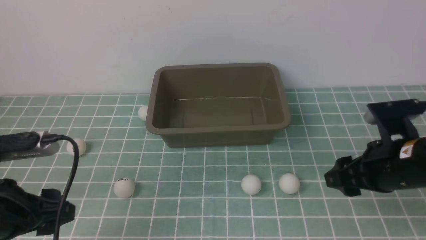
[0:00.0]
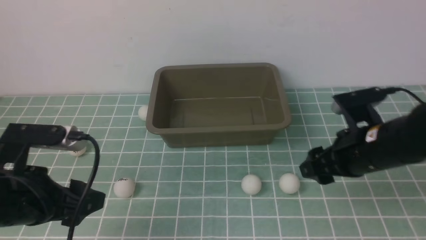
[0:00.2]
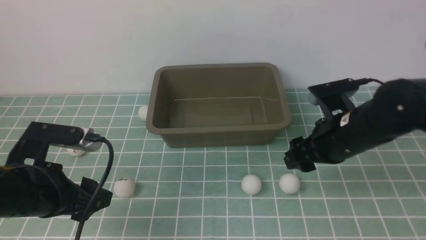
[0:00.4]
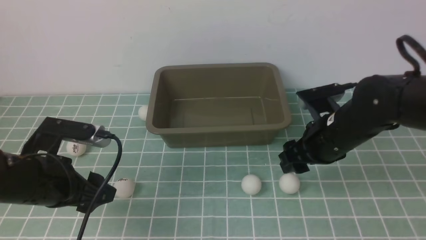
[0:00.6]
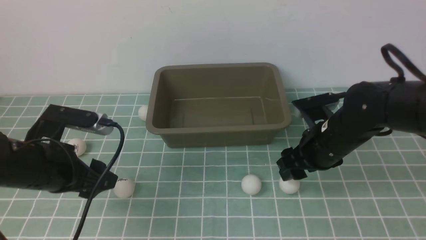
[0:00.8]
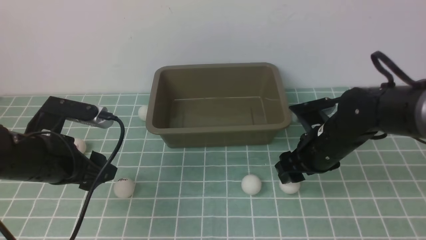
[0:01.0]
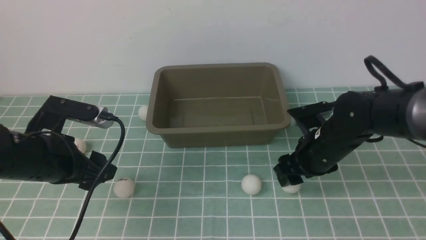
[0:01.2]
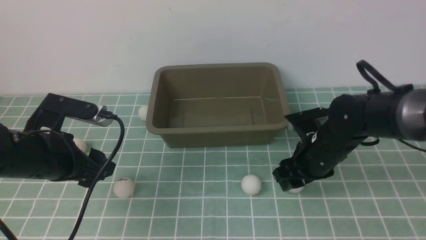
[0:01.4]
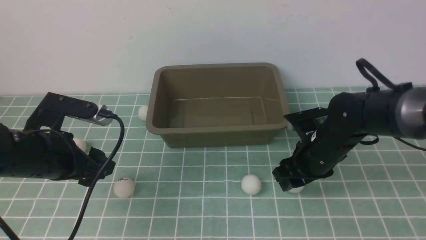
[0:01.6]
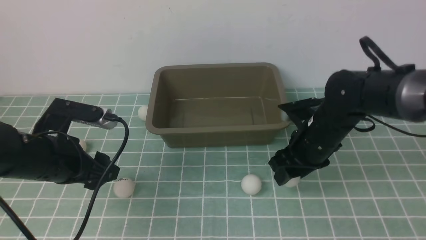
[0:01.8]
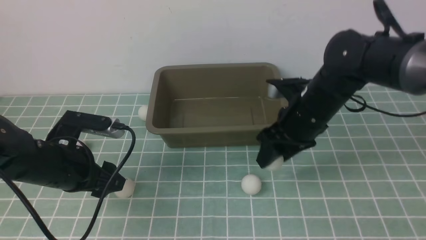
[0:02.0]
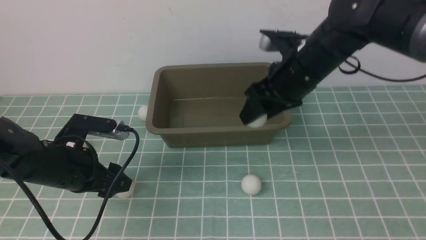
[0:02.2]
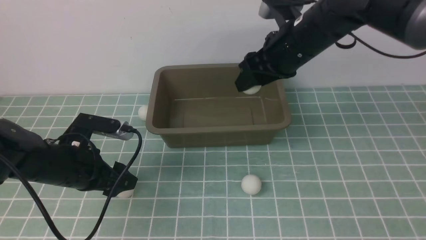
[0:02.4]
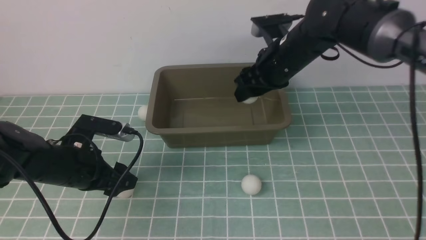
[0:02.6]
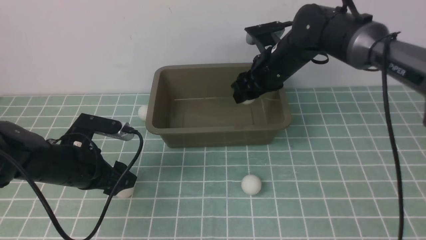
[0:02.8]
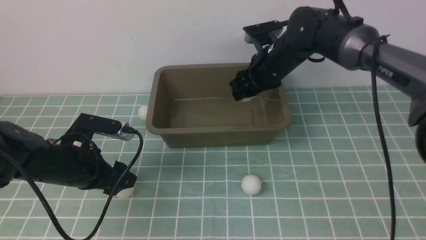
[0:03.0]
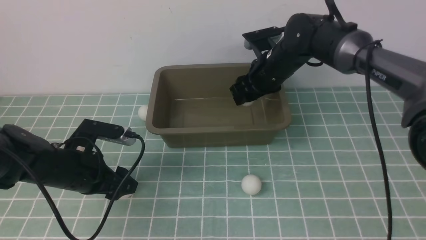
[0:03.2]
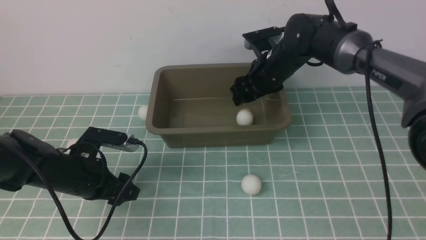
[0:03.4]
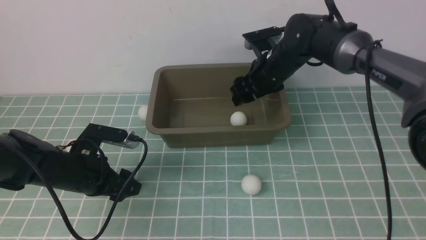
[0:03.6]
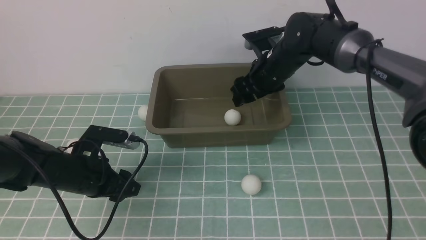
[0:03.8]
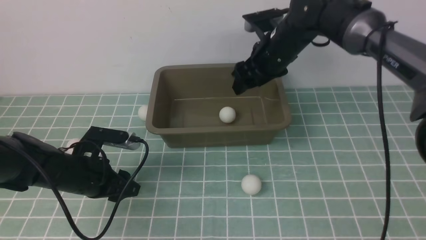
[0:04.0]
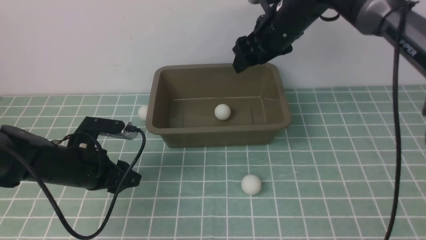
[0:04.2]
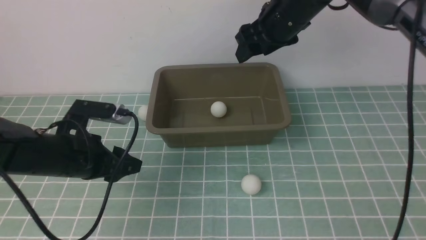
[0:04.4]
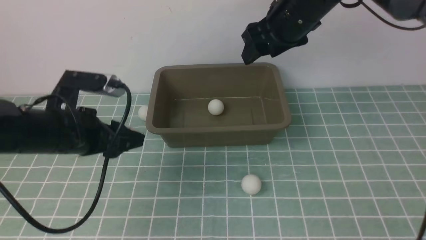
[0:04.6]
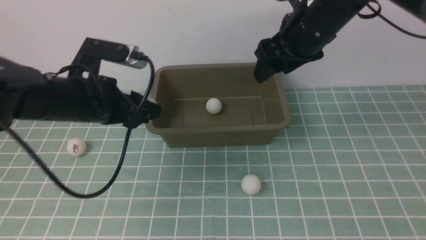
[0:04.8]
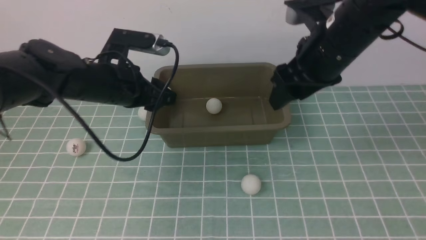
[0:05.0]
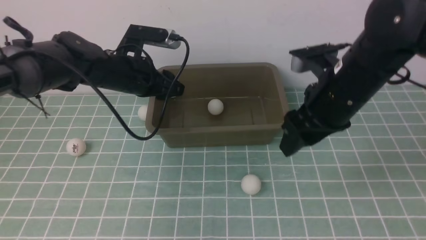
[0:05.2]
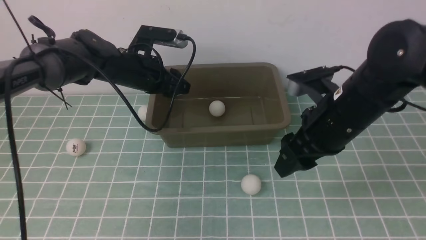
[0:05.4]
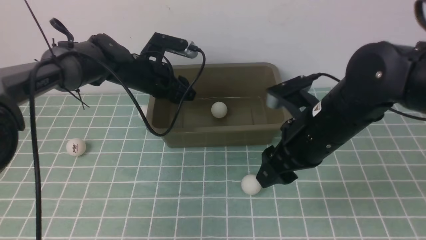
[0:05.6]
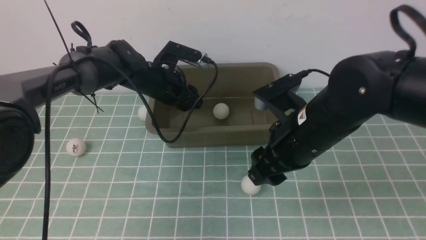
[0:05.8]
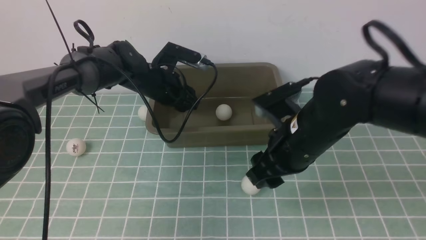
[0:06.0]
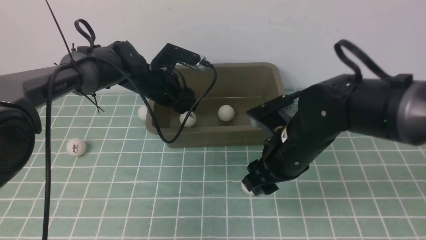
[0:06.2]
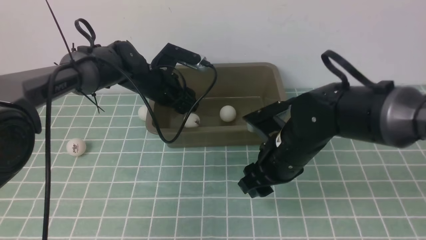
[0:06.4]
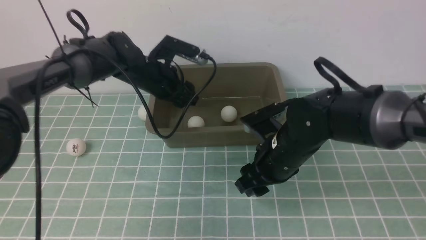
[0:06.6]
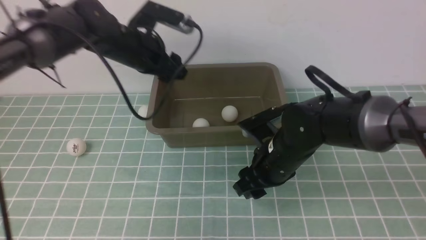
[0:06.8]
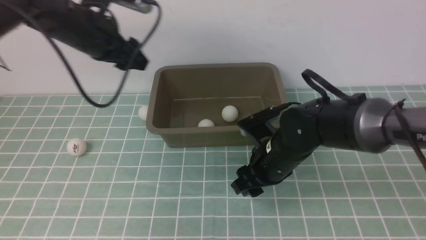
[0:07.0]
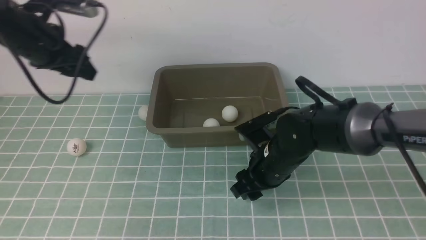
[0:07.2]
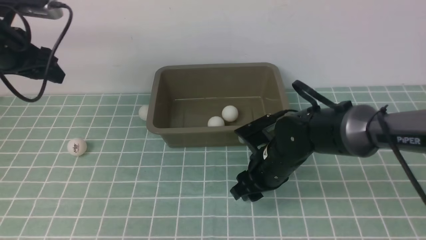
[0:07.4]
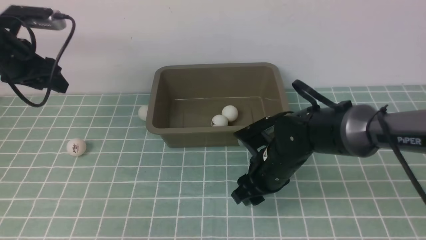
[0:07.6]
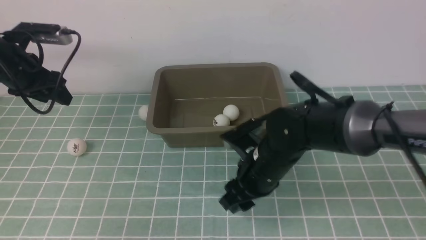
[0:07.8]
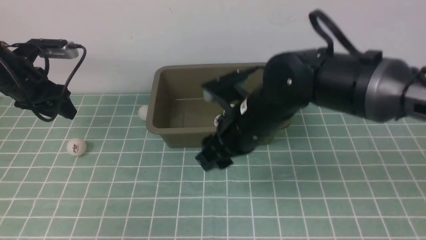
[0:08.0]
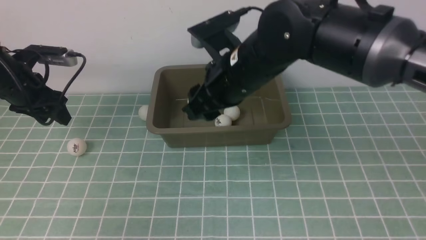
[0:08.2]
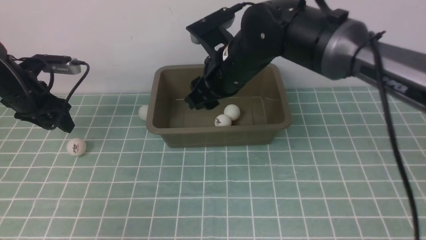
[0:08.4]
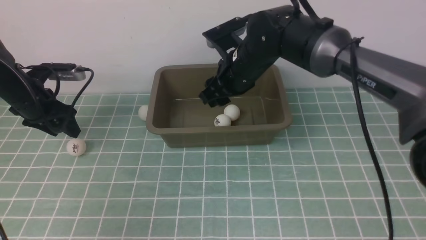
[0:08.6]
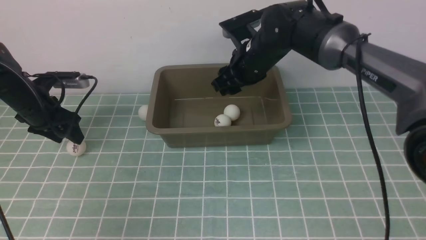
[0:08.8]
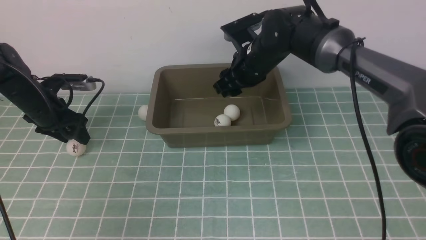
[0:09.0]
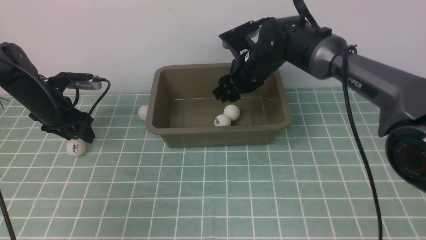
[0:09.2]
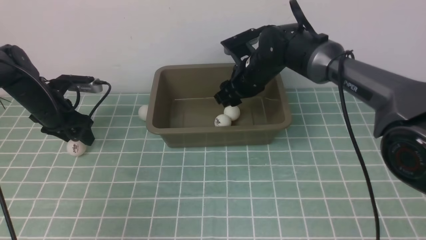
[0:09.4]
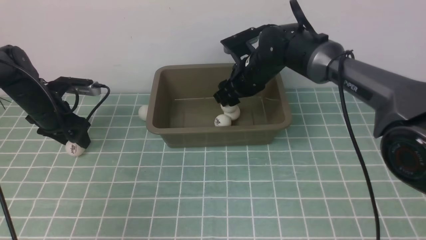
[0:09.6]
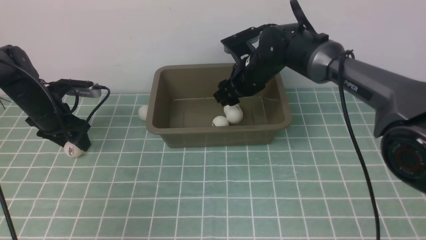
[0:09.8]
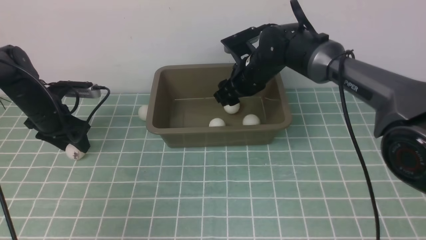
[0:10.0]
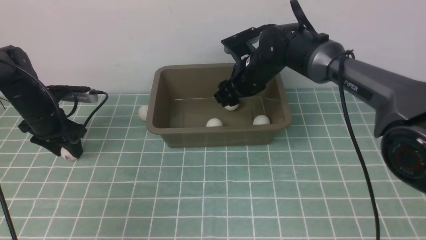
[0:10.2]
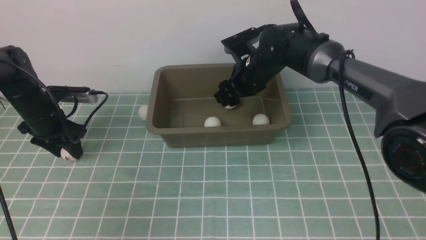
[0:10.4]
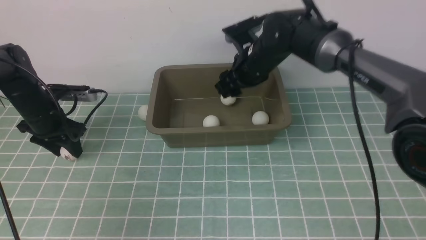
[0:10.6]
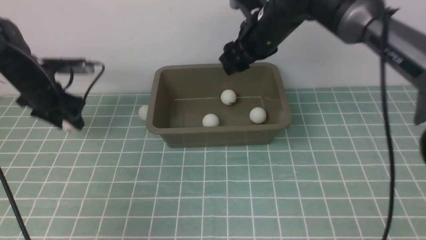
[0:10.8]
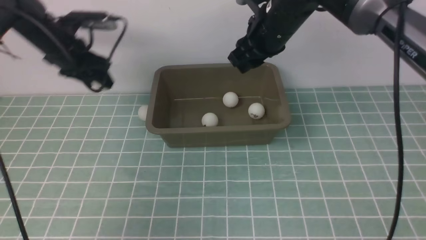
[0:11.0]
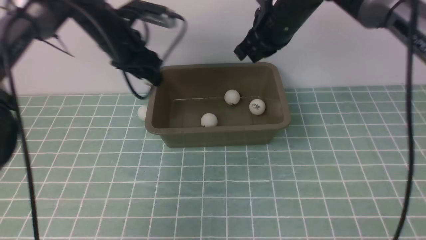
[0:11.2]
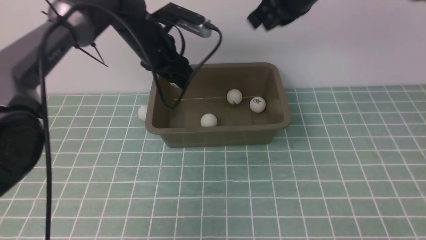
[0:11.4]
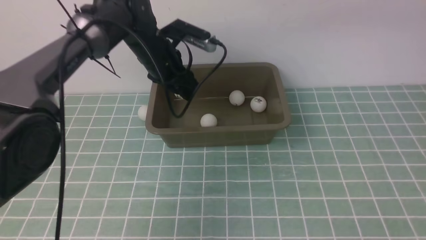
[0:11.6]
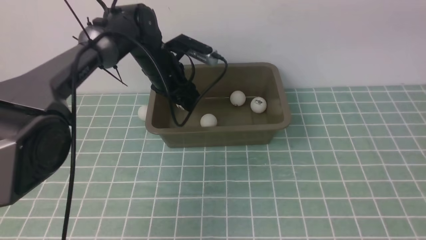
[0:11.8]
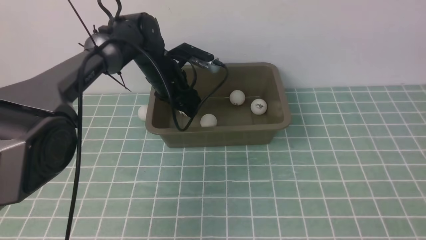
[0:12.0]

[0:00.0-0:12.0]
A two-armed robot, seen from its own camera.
Step, 0:02.2 to 0:03.6: use the right arm to put the table tennis ball into the box.
Step, 0:03.8 to 0:04.4: use the left arm to clamp the table tennis ball closest to it.
Step, 0:04.6 to 0:06.0: use the left arm to put the table tennis ball into the box.
Step, 0:06.2 to 0:07.8: use the right arm to clamp the table tennis ball closest to it.
Step, 0:08.2 to 0:09.8: use the right arm to put the table tennis ball into the box.
Step, 0:10.0 to 0:10.8: use the left arm to clamp the table tennis ball closest to it.
0:00.0 to 0:01.6: The right gripper moves forward, upward and to the left, approximately 15 cm. Meanwhile the left gripper heads forward and downward, covering approximately 10 cm.
0:01.6 to 0:03.0: The right gripper goes roughly 10 cm forward.
0:03.0 to 0:04.4: The left gripper heads forward, upward and to the right, covering some 15 cm. The right gripper moves backward and upward, roughly 15 cm.
0:04.4 to 0:06.0: The right gripper goes some 15 cm downward and to the left.
0:06.0 to 0:07.6: The right gripper travels upward and to the left by about 15 cm, while the left gripper heads to the left, covering roughly 20 cm.
0:07.6 to 0:09.0: The right gripper moves forward and downward, approximately 15 cm, while the left gripper heads downward, covering about 5 cm.
0:09.0 to 0:10.4: The grippers make only small movements.
0:10.4 to 0:12.0: The left gripper moves to the right, about 25 cm. The right gripper shifts approximately 50 cm backward, upward and to the right, and closes its fingers.

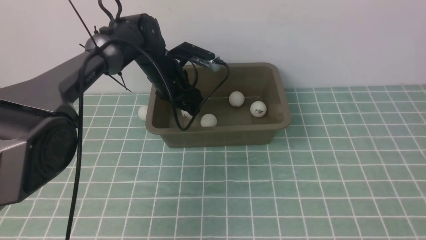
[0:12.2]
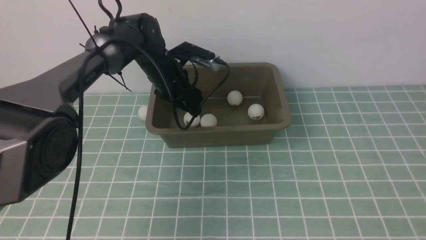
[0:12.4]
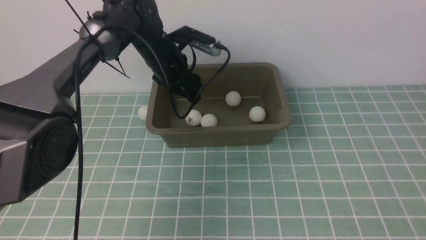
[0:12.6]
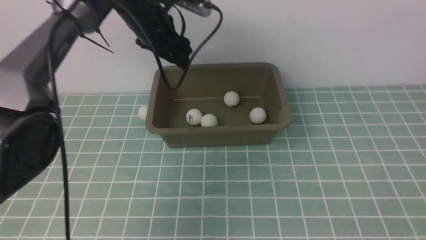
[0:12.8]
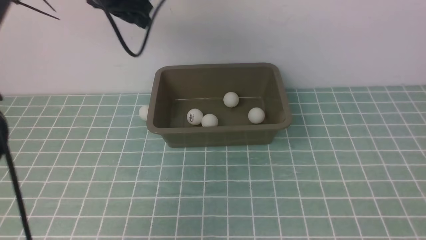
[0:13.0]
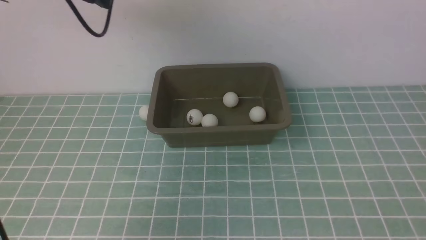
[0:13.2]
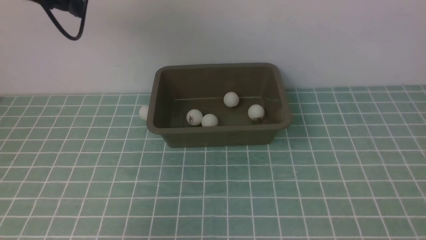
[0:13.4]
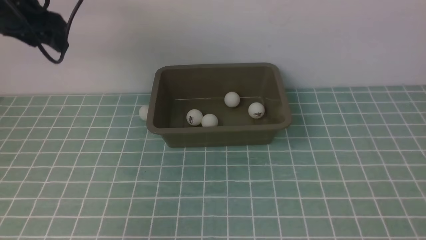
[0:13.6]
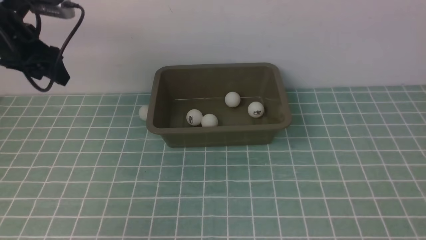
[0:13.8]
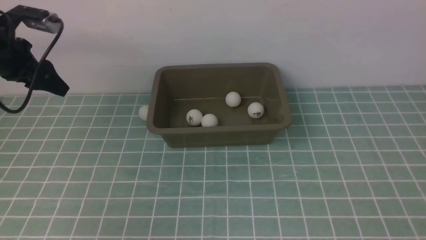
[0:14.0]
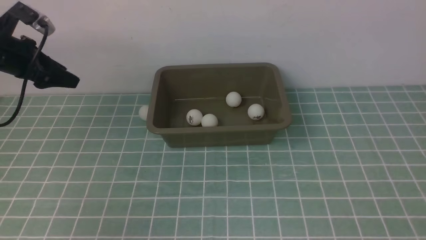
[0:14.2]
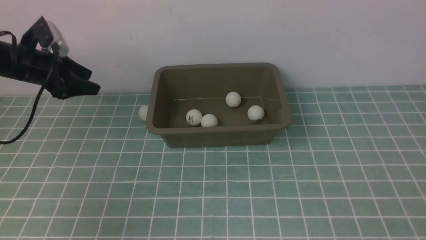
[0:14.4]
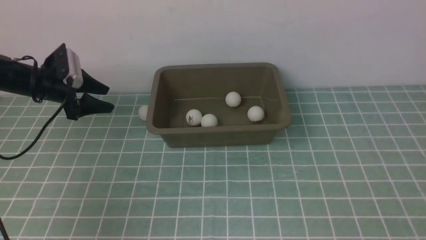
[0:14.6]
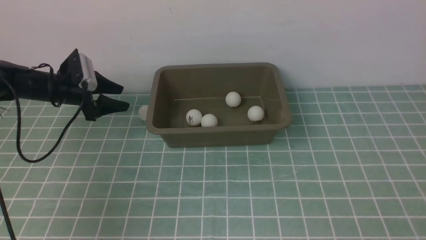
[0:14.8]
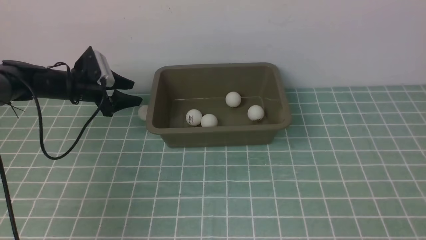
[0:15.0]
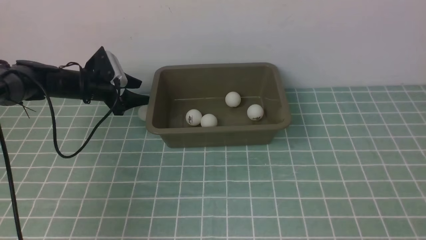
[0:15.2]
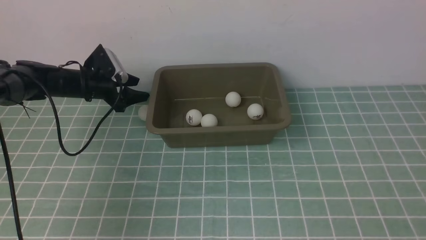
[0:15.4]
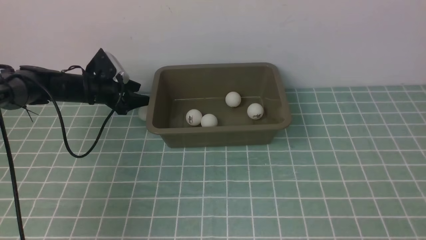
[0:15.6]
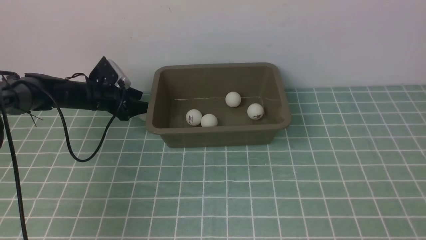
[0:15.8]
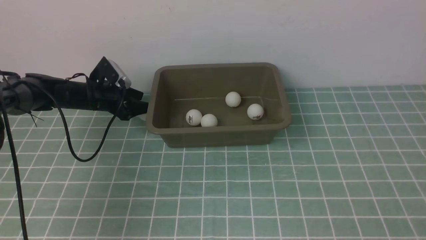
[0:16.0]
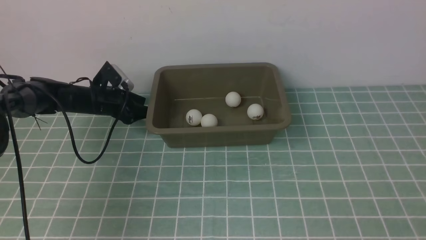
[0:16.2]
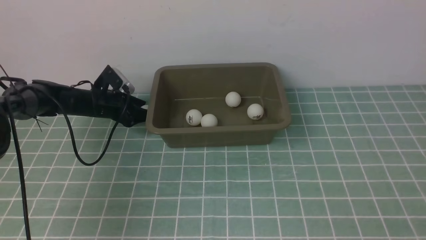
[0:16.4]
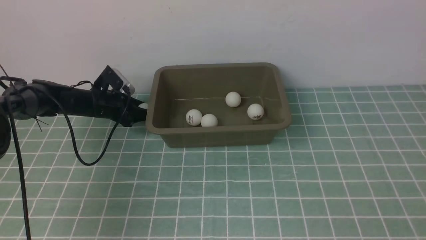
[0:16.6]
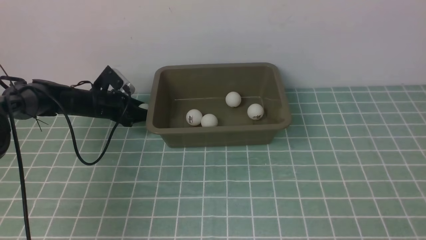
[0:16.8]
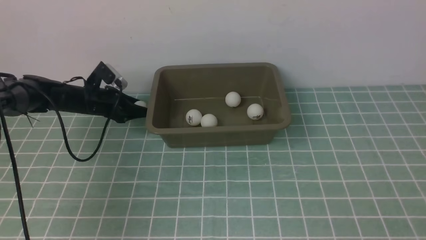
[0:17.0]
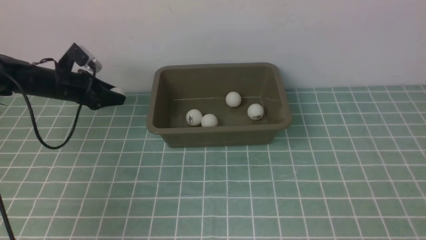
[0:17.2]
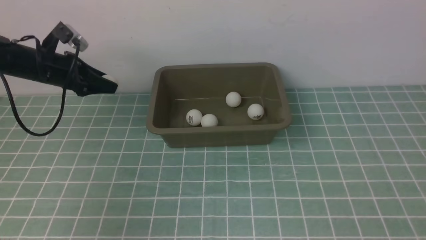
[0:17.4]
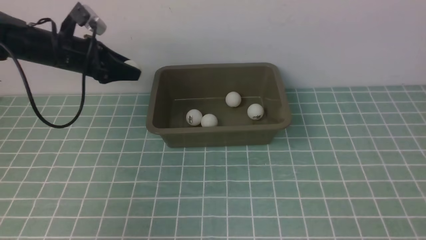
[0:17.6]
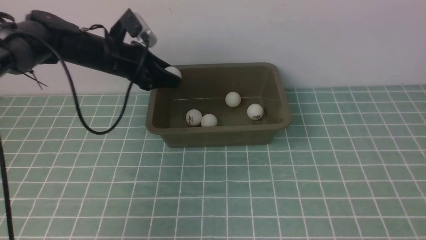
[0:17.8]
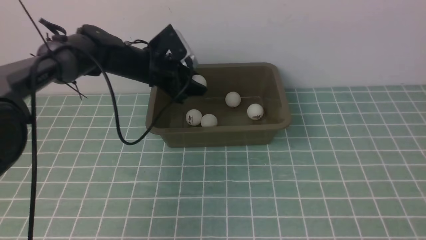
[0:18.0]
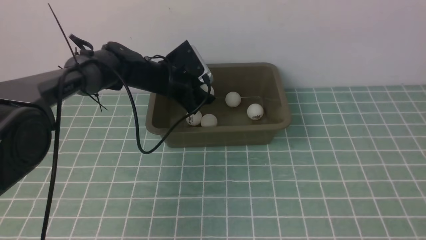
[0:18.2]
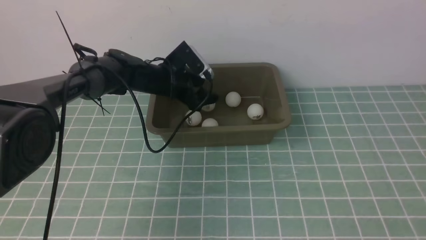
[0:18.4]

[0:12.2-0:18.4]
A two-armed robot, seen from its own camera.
Step, 0:12.6 to 0:17.2: use the left arm to clamp the table tennis ball closest to it.
0:12.2 to 0:13.8: The left gripper shifts roughly 20 cm to the left.
0:13.8 to 0:15.4: The left gripper goes roughly 15 cm downward and to the right.
0:15.4 to 0:16.8: The left gripper travels upward by some 15 cm.
0:16.8 to 0:18.4: The right gripper goes roughly 10 cm downward and backward; the left gripper heads to the right and upward, covering some 10 cm, and closes.
